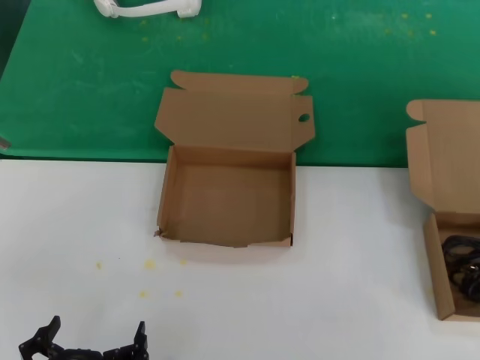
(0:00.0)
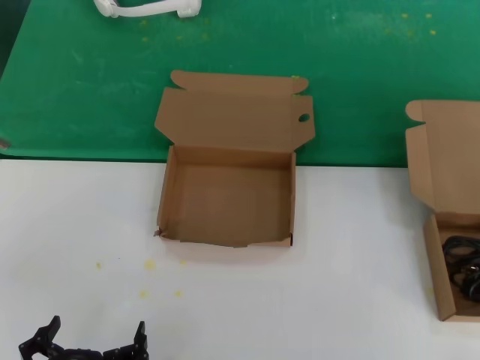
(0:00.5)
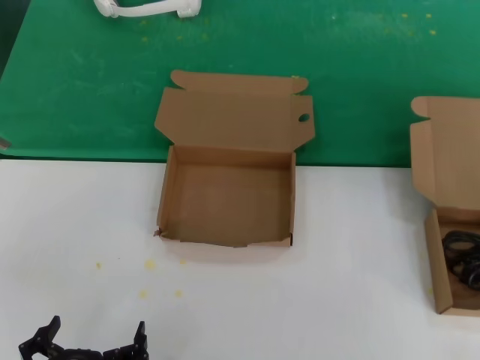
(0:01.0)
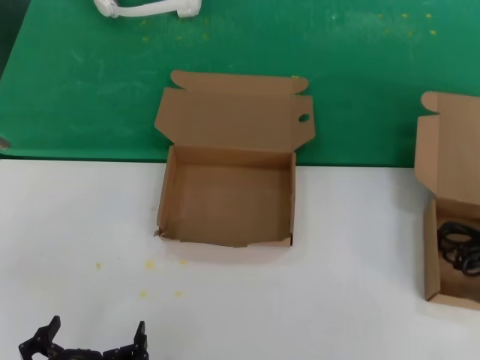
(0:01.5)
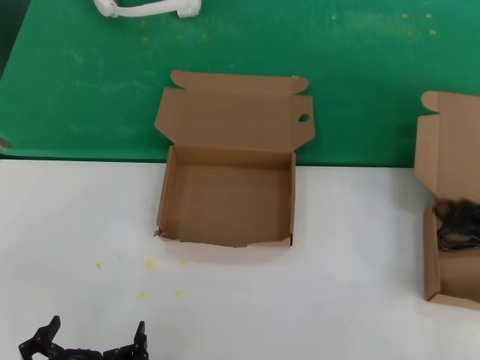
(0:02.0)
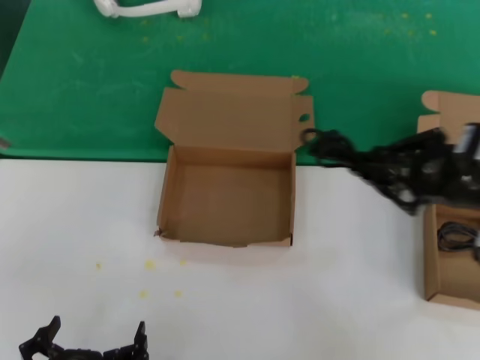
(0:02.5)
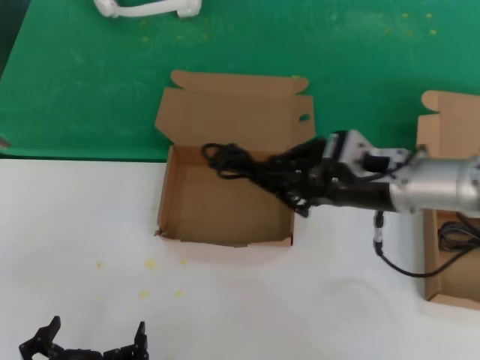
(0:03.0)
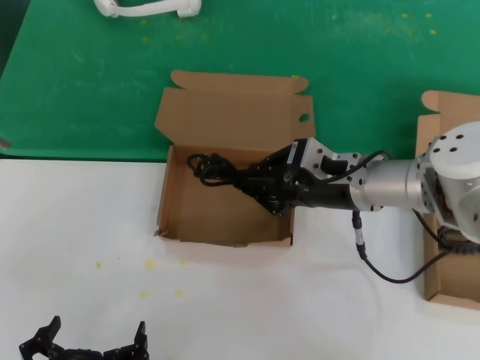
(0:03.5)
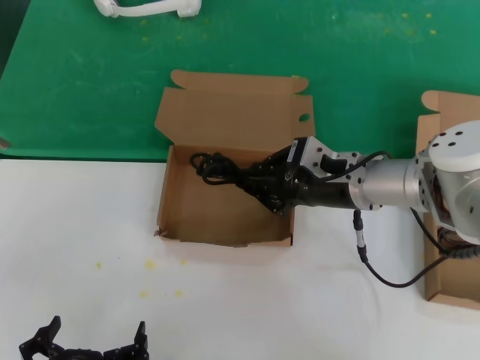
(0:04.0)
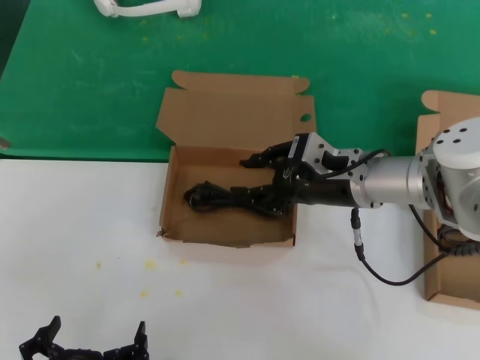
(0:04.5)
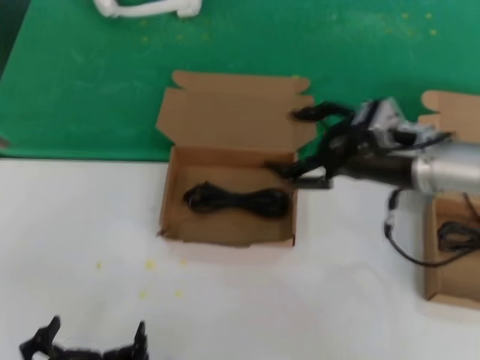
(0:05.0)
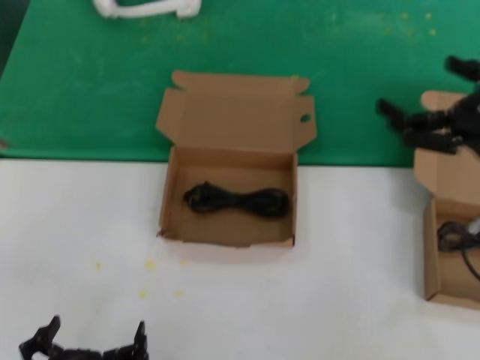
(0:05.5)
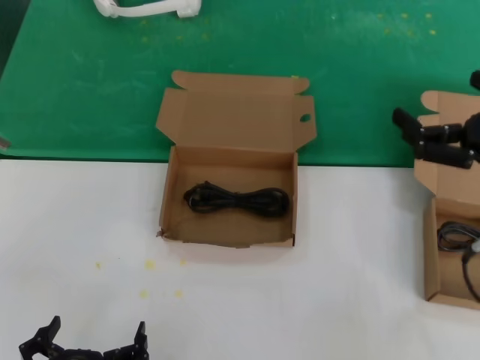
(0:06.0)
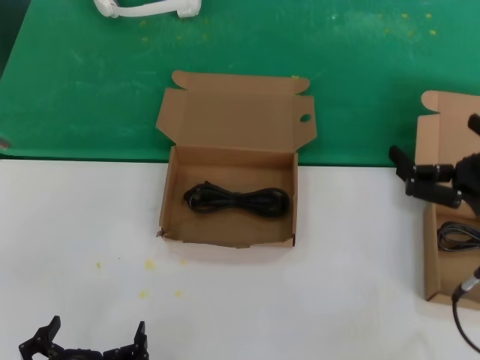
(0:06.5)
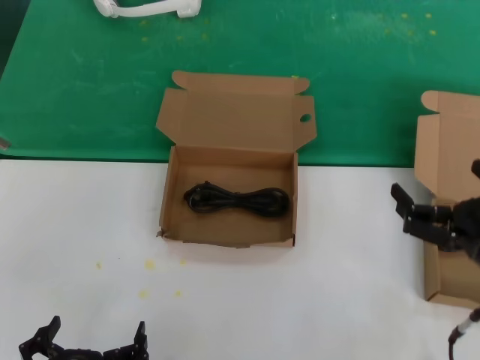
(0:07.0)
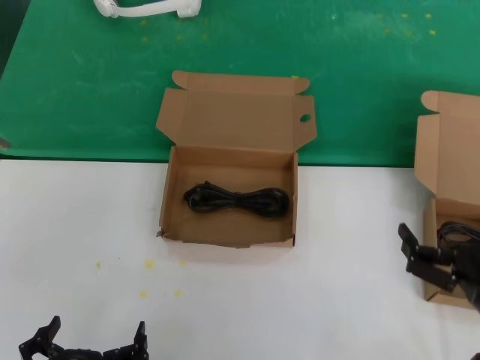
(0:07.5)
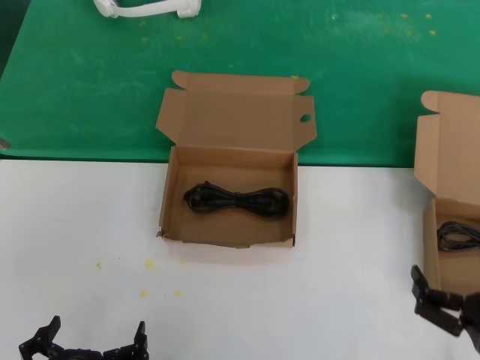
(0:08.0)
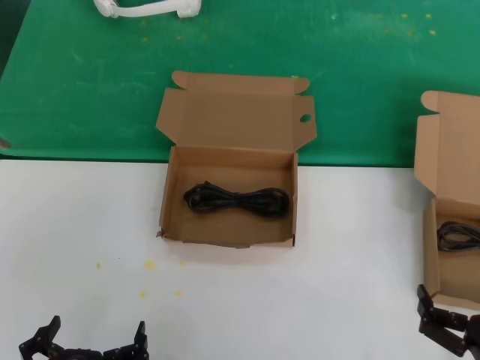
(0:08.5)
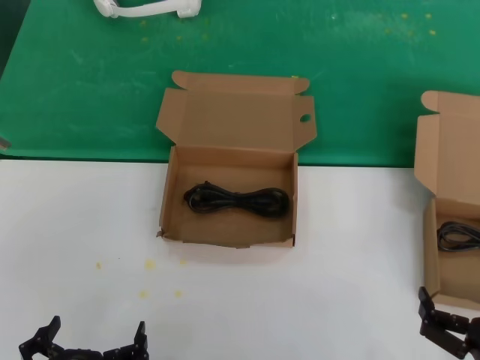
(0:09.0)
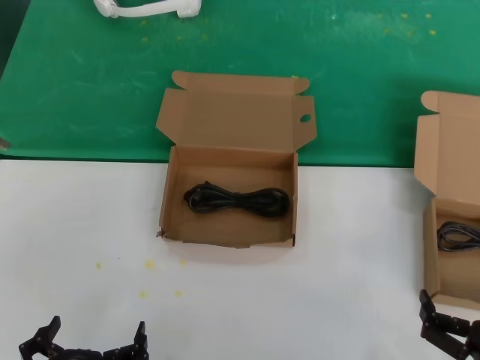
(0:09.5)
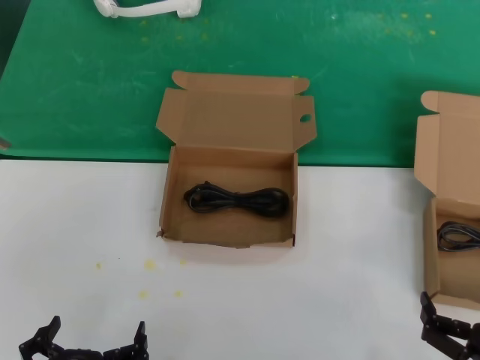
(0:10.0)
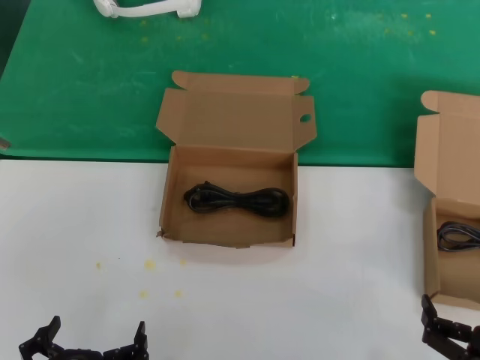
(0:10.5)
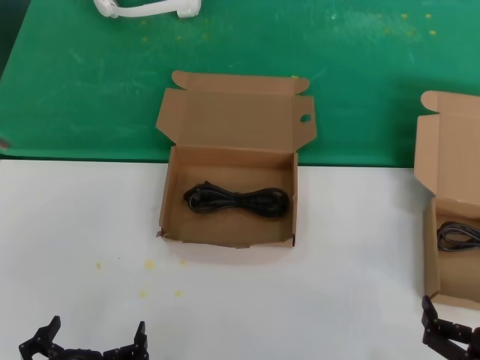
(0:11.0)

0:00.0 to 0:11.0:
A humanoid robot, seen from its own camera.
Task of the whole recording: take the parts from the box containing them and put them into an empty box.
Step, 0:01.0 to 0:04.0: Place the data cable in the another box.
0:00.0 to 0:02.0: The right hand heads upward, covering about 10 cm.
0:02.0 to 0:03.5: The right hand is displaced to the left and forward by some 30 cm.
0:03.5 to 0:05.5: The right hand heads to the right and backward, covering approximately 20 cm.
0:05.5 to 0:07.5: The right hand is displaced downward and backward by approximately 20 cm.
0:07.5 to 0:09.0: The right hand heads downward and backward, covering some 10 cm.
0:09.0 to 0:11.0: Both hands stay put.

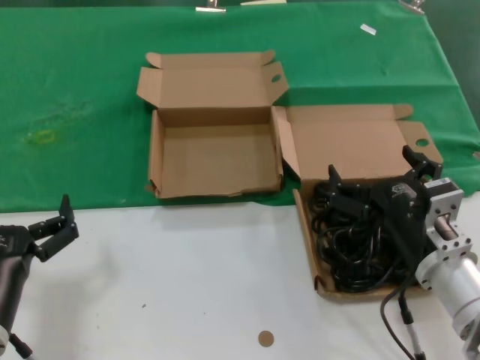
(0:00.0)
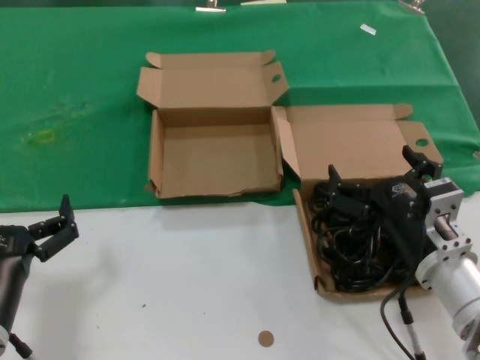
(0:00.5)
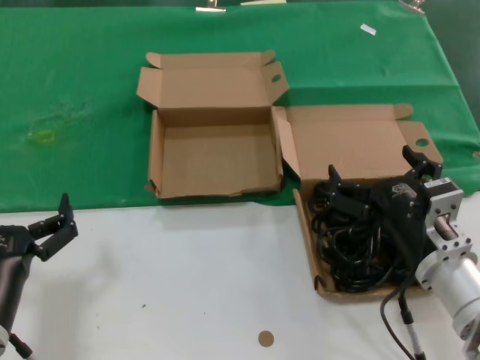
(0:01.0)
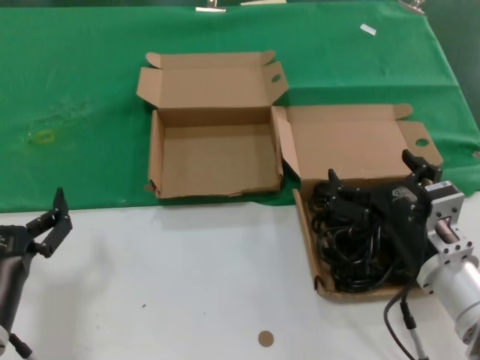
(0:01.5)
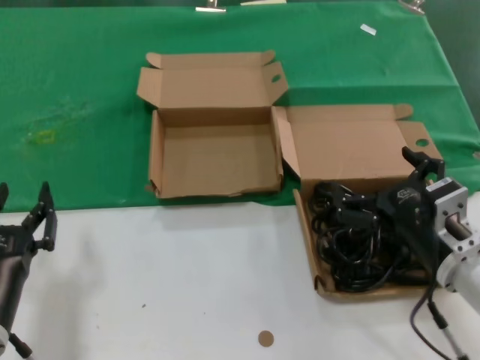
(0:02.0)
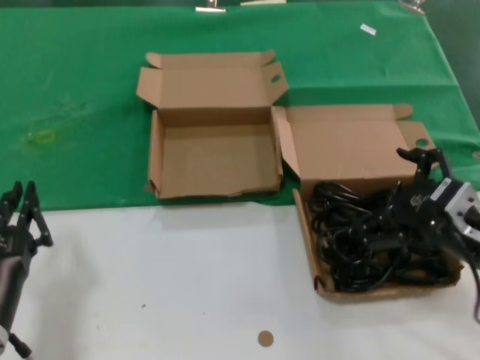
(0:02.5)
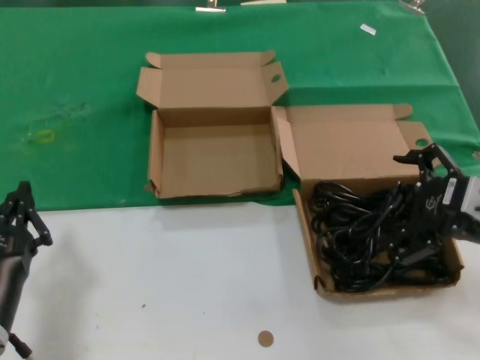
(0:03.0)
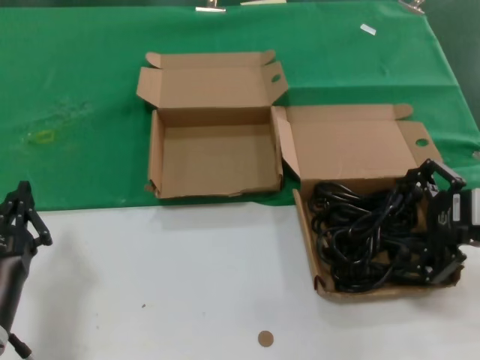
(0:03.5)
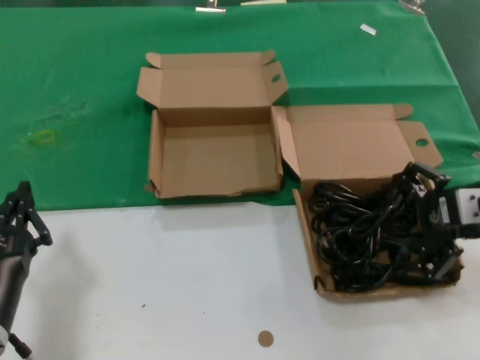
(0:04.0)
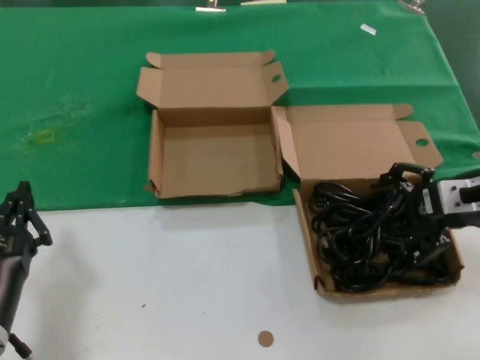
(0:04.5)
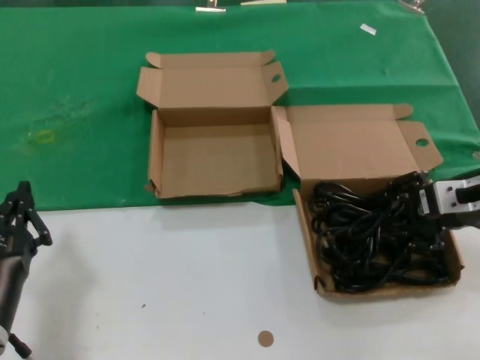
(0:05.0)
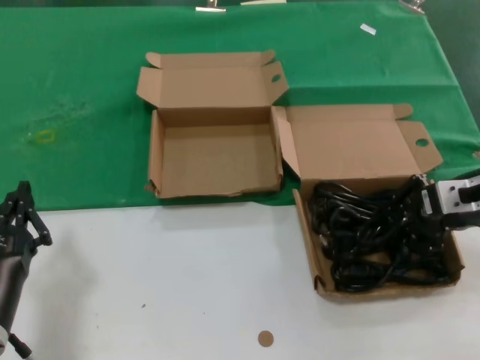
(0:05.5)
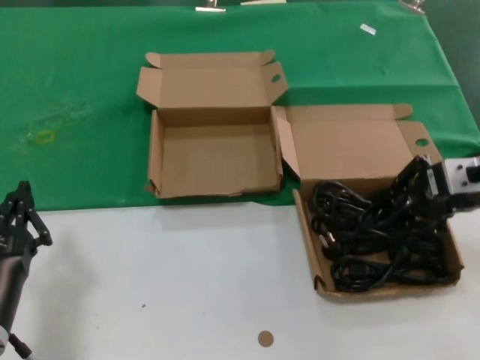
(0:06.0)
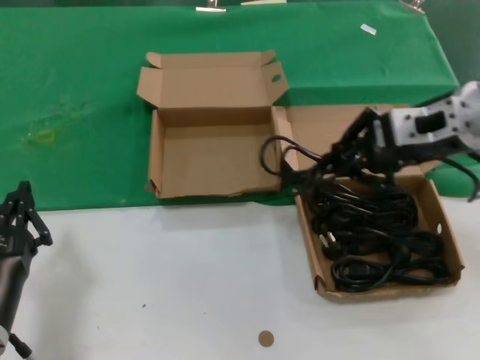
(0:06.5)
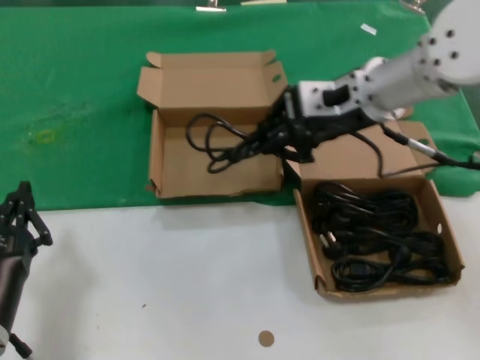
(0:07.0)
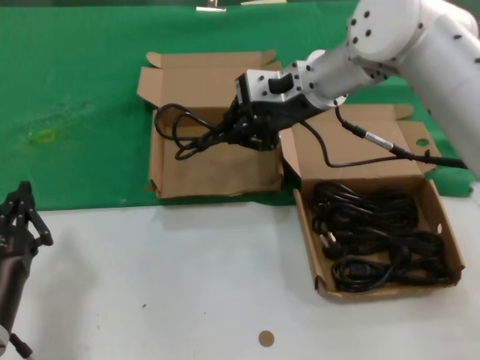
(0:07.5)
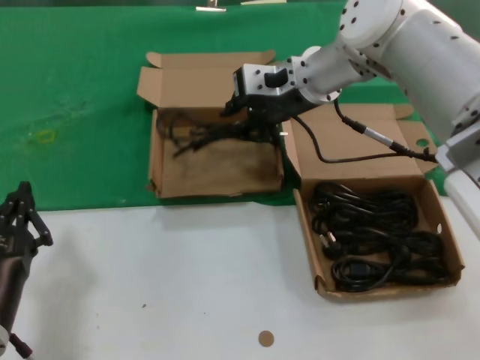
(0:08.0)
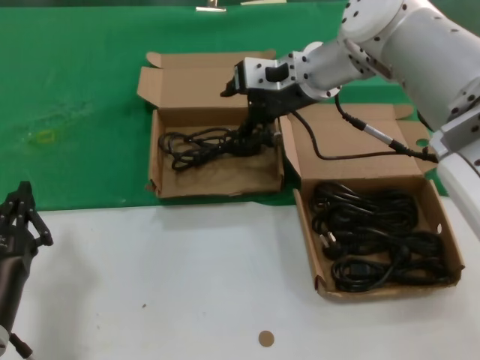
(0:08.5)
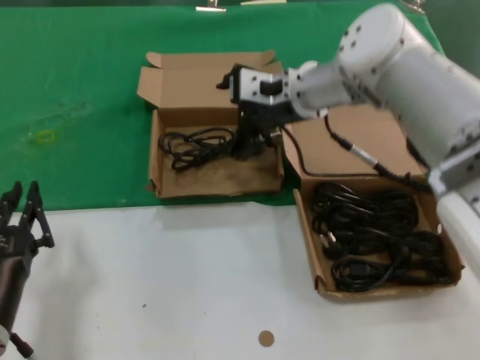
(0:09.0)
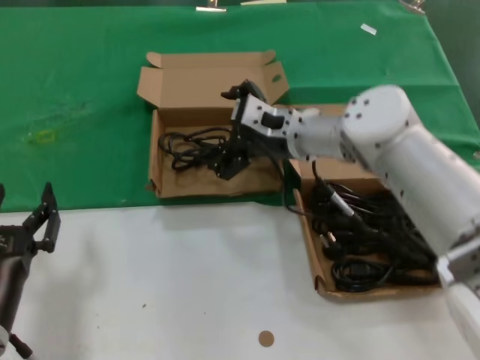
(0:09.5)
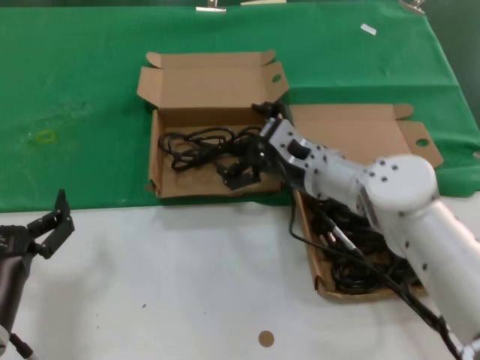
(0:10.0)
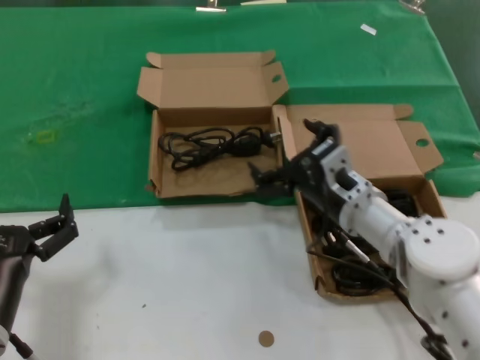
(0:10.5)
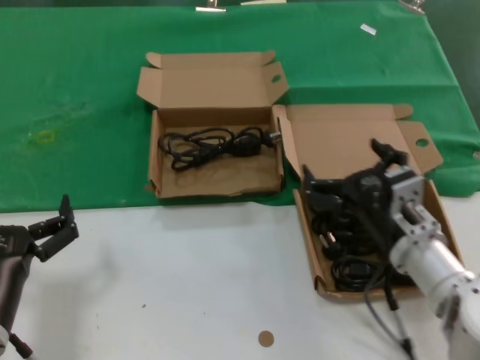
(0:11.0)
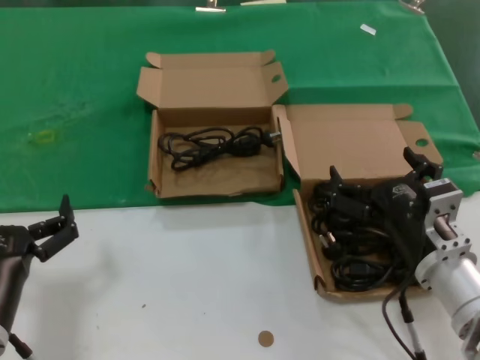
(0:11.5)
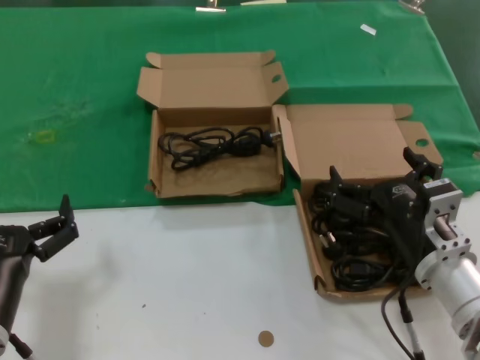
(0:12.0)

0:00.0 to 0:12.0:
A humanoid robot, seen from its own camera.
Task of the whole recording: take the parts from the box containing them and put them into an empty box.
Step, 0:00.0 to 0:05.0: Grasp the data cable.
Step, 0:05.5 to 0:08.0: Place the data cable in the another box.
0:00.0 to 0:02.0: The hands move only a little.
0:02.0 to 0:04.0: The right hand moves upward, to the right and forward, roughly 15 cm.
0:04.0 to 0:06.0: The hands stay close to where they were, moving slightly.
0:06.0 to 0:08.0: The right hand moves to the left and forward, some 25 cm.
0:08.0 to 0:10.0: The right hand heads downward and backward, covering some 15 cm.
0:10.0 to 0:12.0: The right hand is displaced backward and to the right by roughly 20 cm.

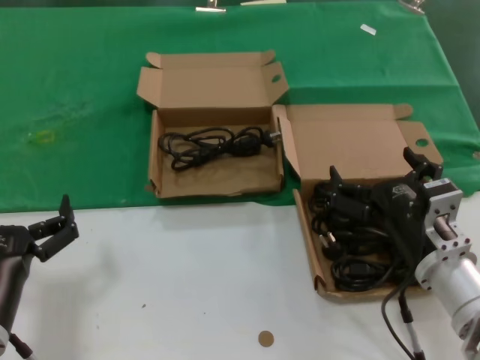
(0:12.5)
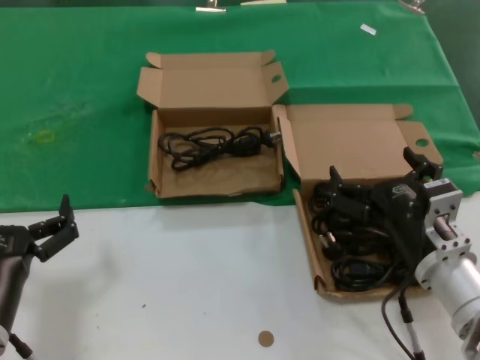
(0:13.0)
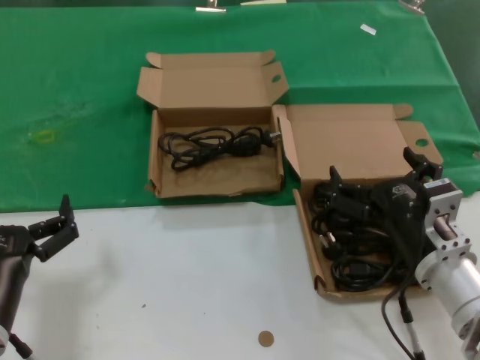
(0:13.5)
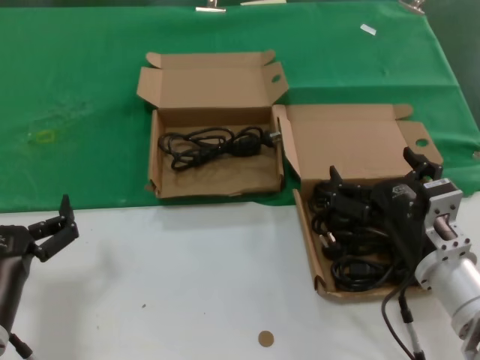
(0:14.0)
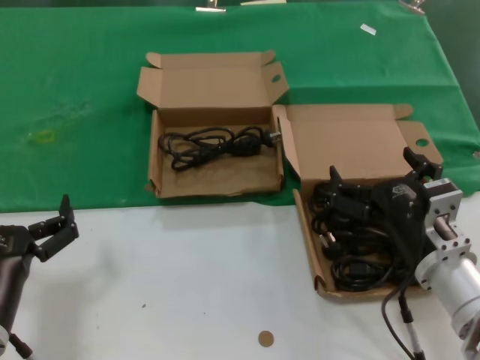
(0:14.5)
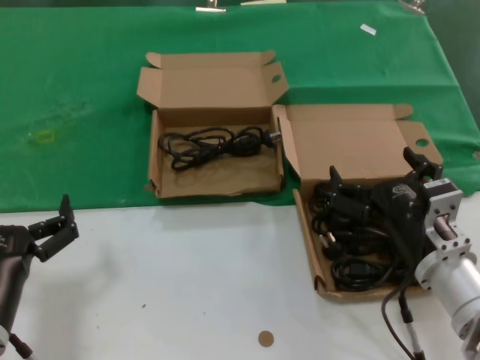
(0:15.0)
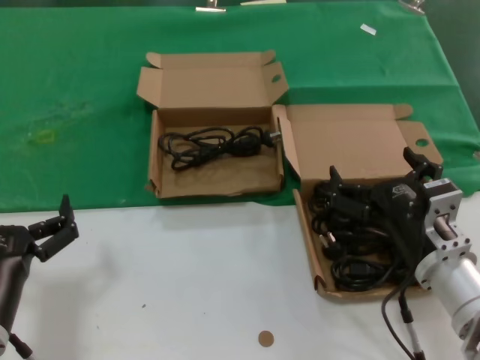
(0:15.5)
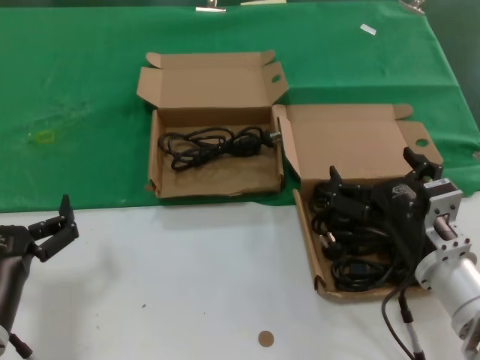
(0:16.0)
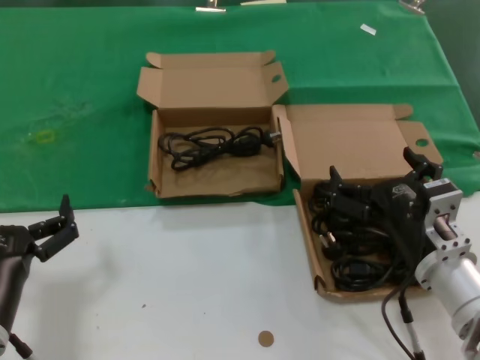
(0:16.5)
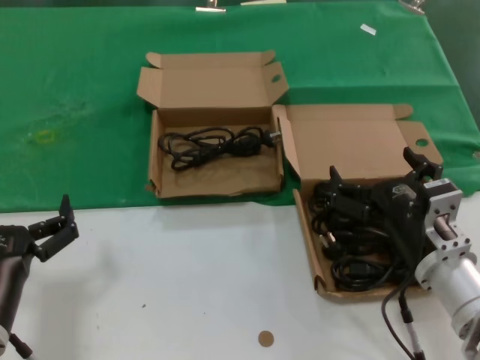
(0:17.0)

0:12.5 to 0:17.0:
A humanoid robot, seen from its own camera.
Task of the whole recording: take the parts from the box containing them and put them into an empty box.
0:12.5 to 0:17.0: Neither hand changes place.
